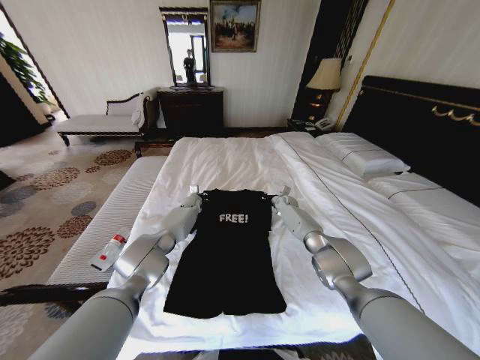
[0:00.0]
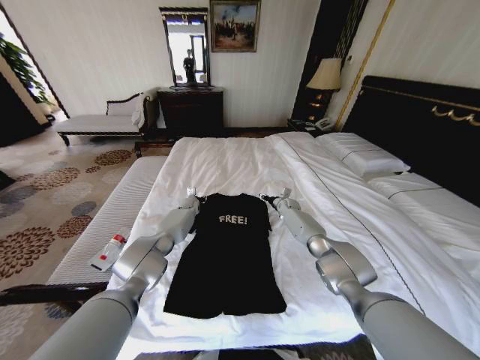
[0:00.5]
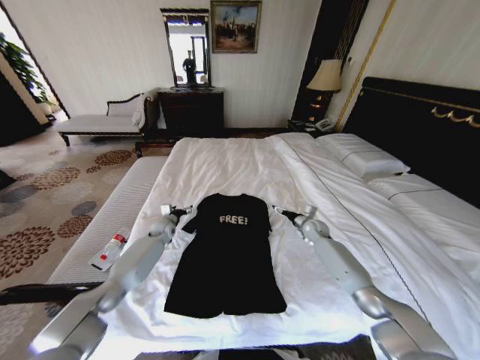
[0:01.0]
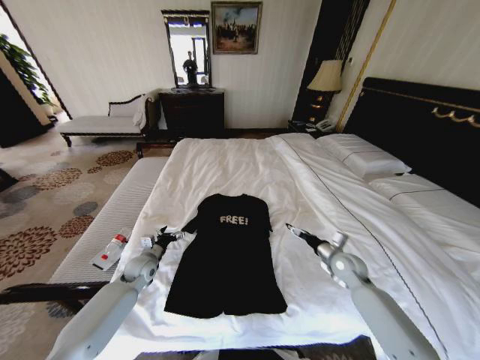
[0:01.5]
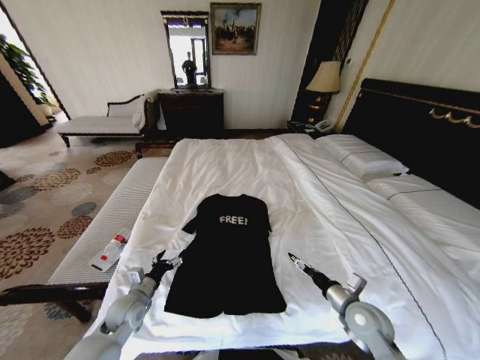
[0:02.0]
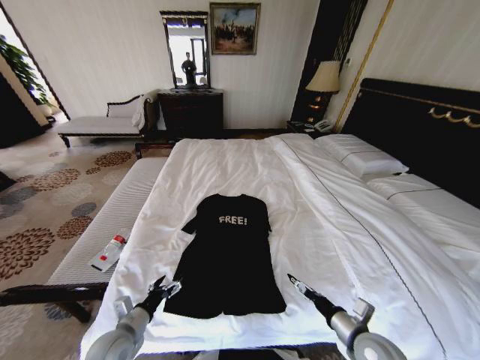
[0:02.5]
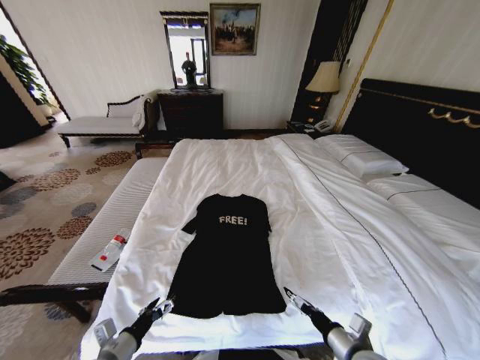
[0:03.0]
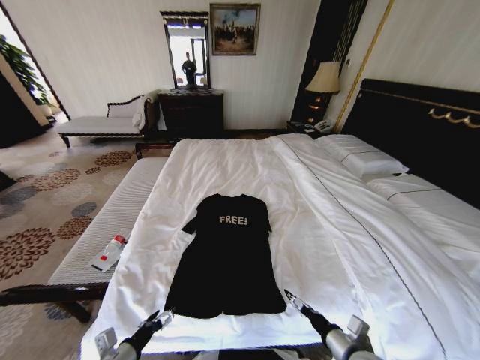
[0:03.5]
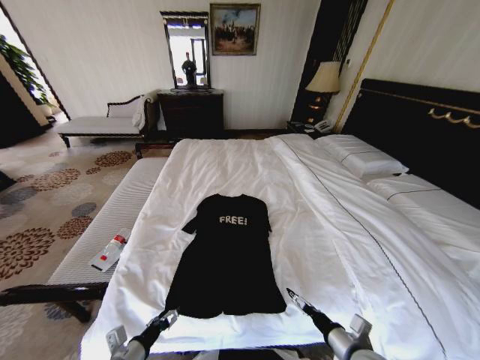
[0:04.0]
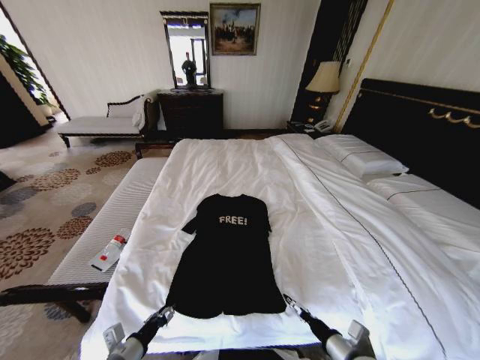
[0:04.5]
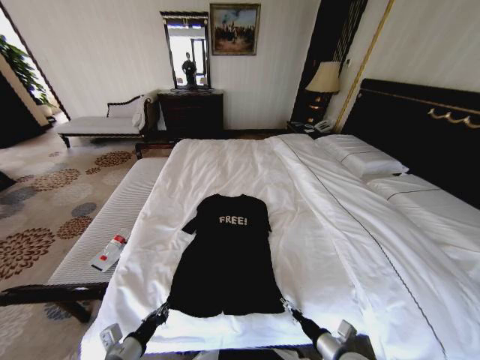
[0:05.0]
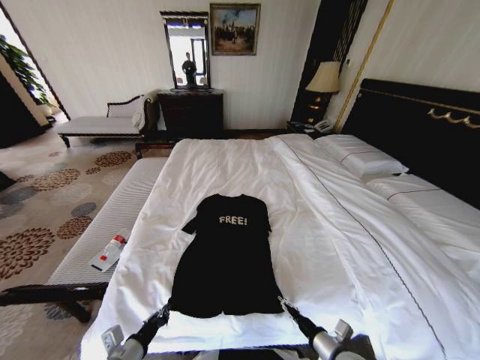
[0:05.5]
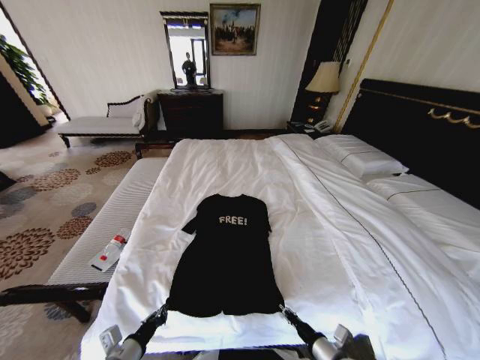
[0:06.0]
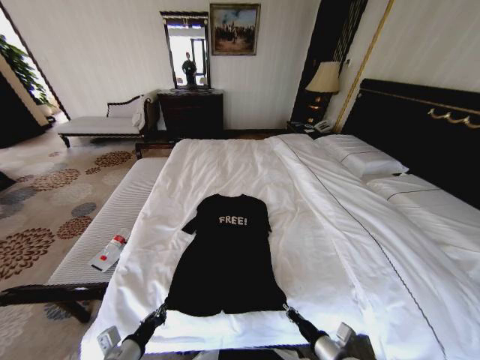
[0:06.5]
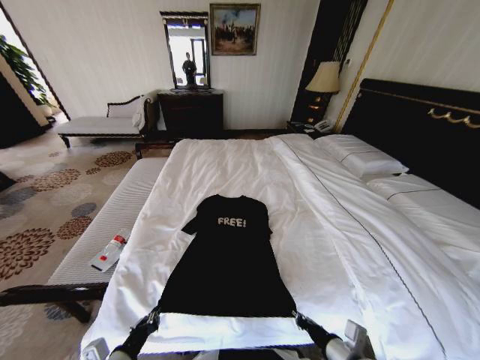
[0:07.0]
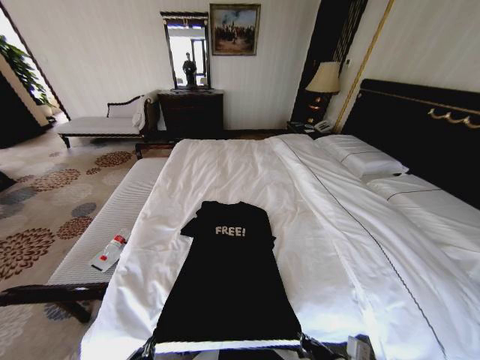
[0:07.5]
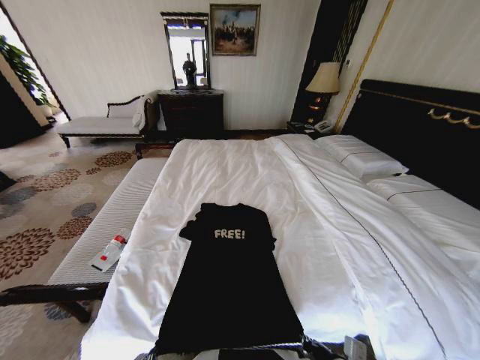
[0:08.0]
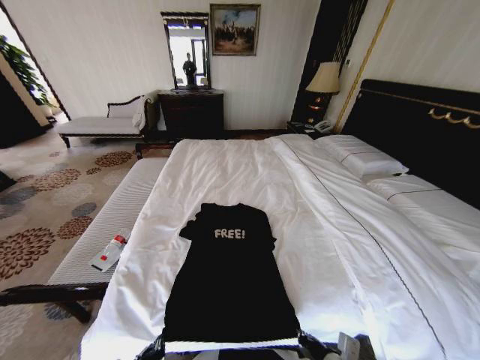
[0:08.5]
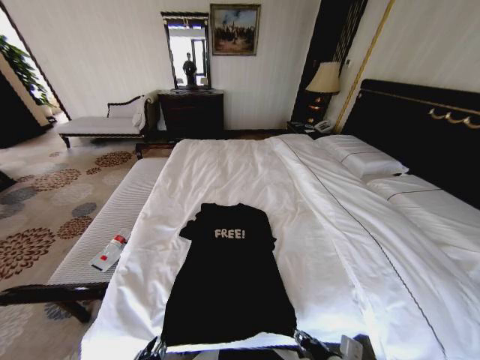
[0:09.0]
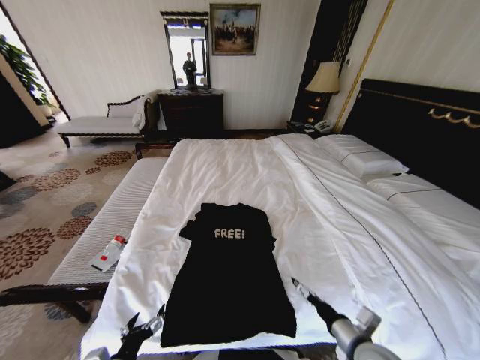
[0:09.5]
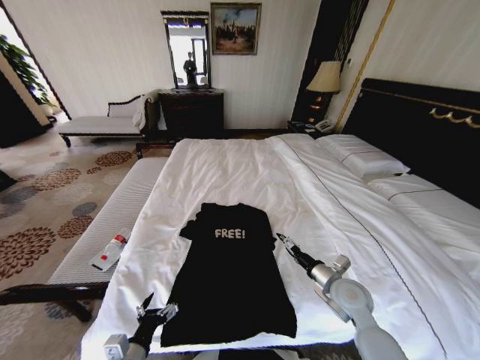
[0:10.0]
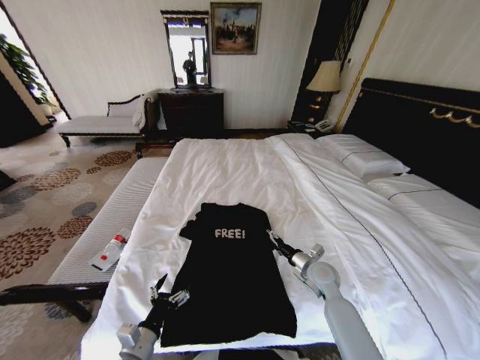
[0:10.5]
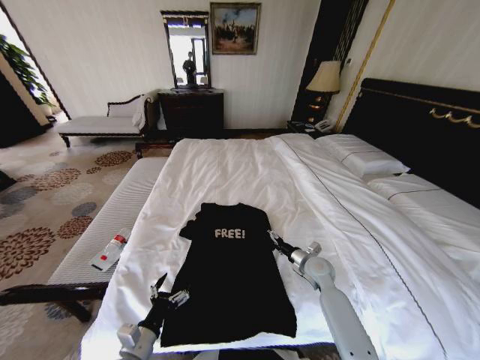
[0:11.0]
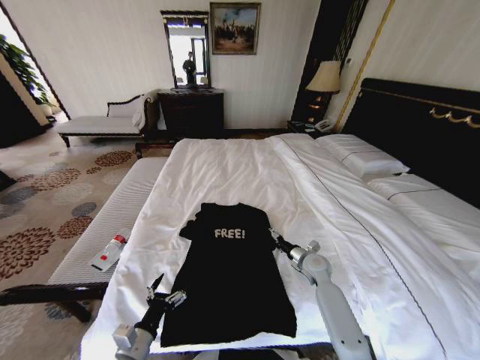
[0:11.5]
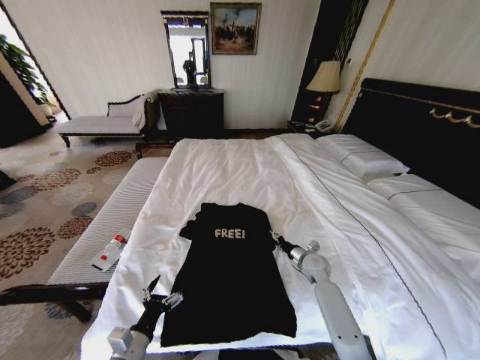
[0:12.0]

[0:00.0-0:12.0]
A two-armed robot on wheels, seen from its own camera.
Task of the whole recording: Fold the clothes on the bed.
0:00.0 to 0:02.0: Both grippers move backward, about 40 cm. The right gripper opens its fingers. Meanwhile the left gripper opens.
0:02.0 to 0:04.0: The left gripper travels backward by about 15 cm; the right gripper travels backward by approximately 10 cm.
0:04.0 to 0:06.0: The left gripper closes up. Meanwhile the right gripper ends up approximately 5 cm from where it was, and closes its fingers.
0:06.0 to 0:08.0: The right gripper goes approximately 5 cm upward. The left gripper goes some 10 cm backward.
0:08.0 to 0:10.0: The left gripper heads forward, covering about 10 cm, and opens up. The right gripper goes approximately 20 cm forward, and opens up.
0:10.0 to 0:12.0: The right gripper travels forward and downward by about 15 cm.

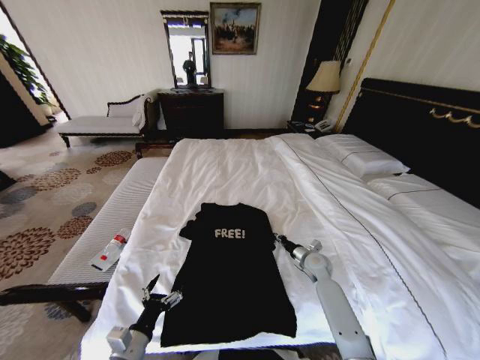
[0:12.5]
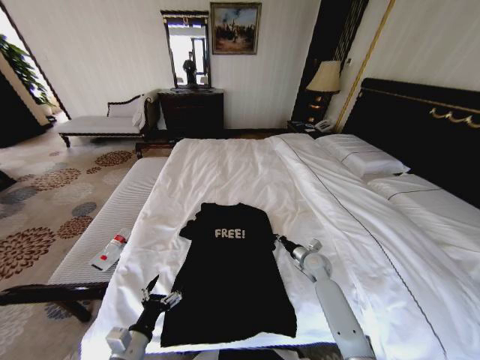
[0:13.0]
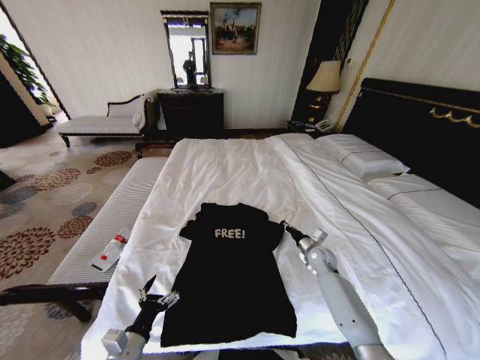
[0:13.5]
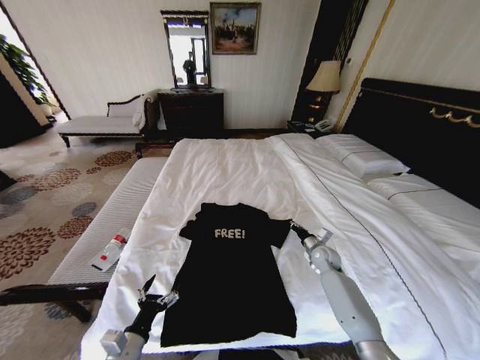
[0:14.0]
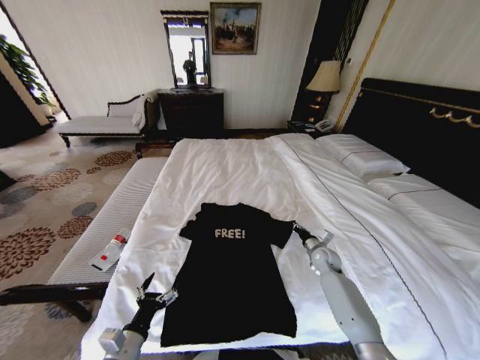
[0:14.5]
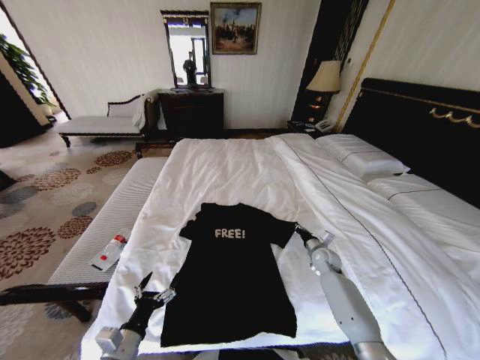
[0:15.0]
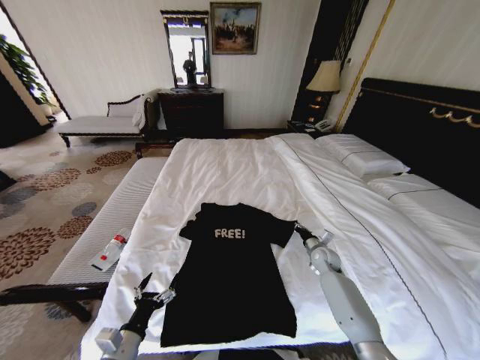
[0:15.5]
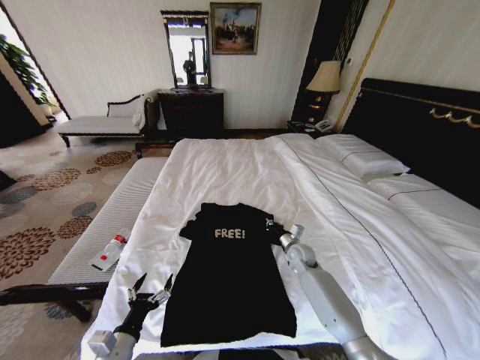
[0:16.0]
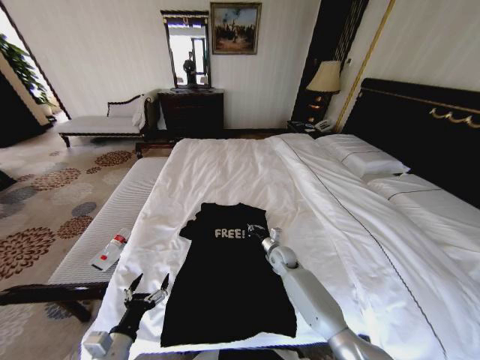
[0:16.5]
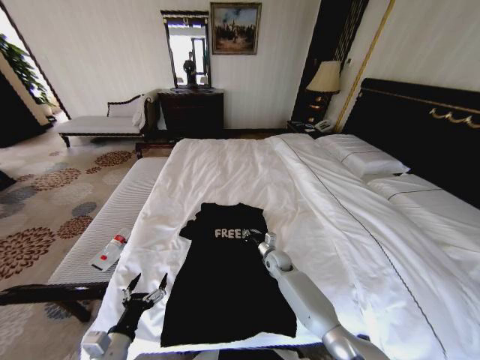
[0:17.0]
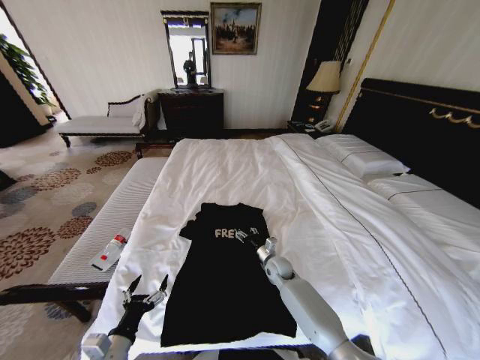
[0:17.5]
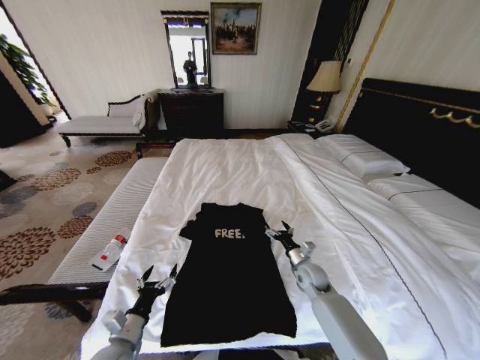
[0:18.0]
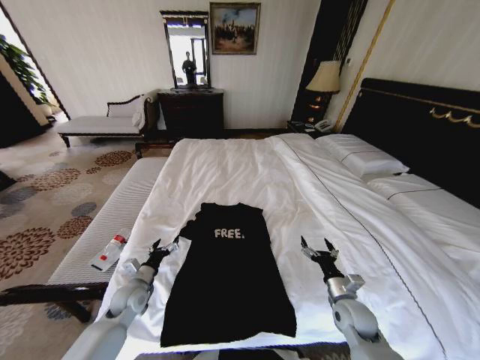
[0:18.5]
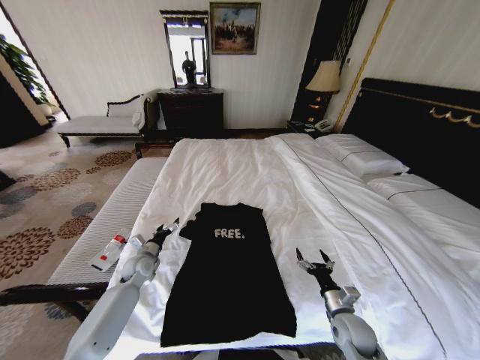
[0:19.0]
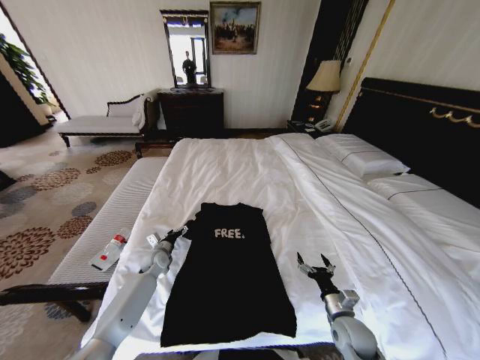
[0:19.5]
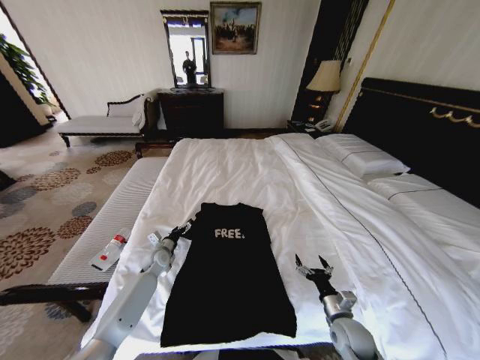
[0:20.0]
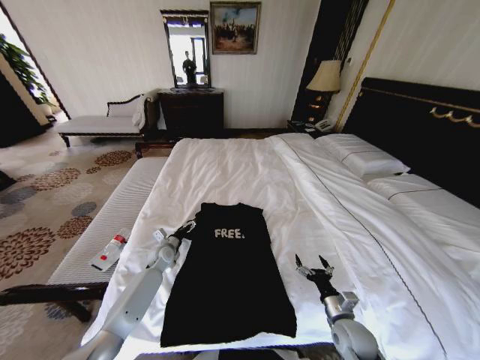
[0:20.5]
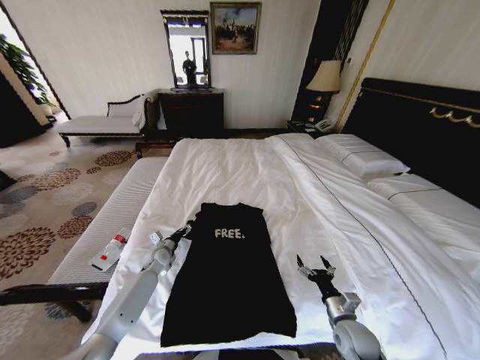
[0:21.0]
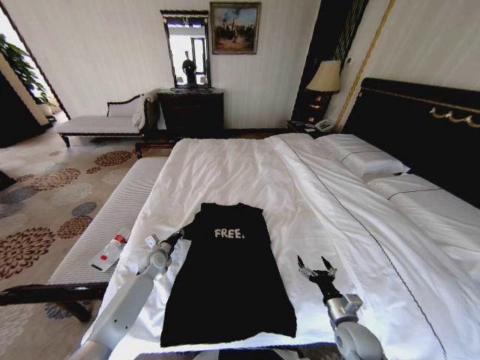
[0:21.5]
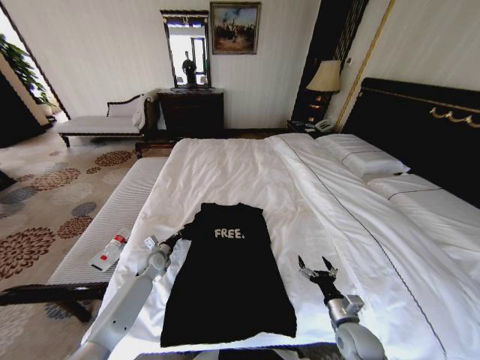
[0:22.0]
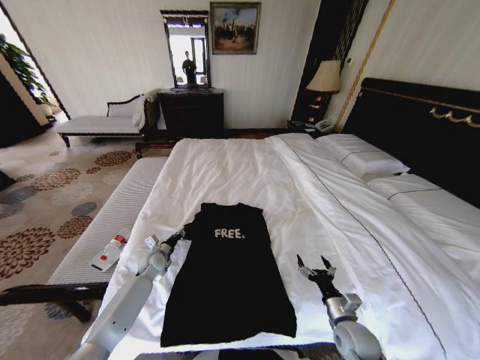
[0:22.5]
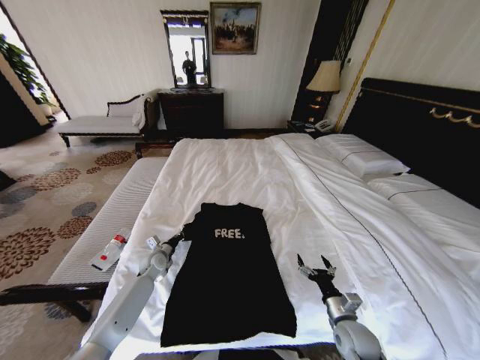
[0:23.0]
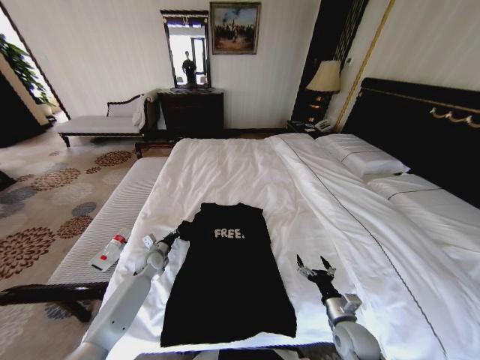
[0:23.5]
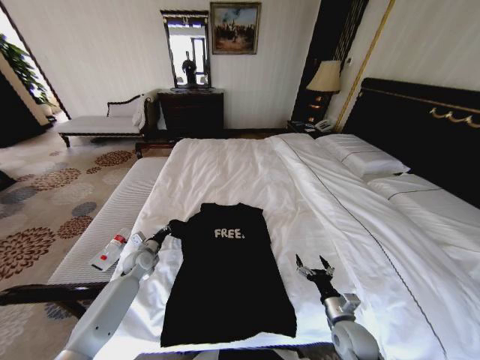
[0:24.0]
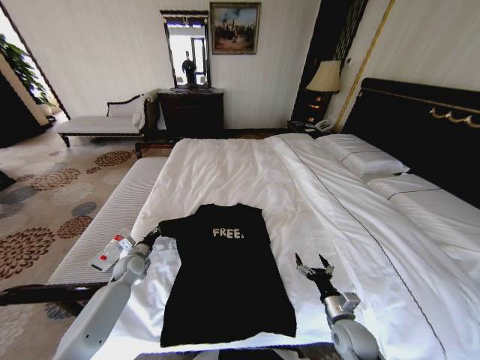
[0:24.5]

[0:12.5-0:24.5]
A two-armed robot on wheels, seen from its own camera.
Task of the whole recording: Fold the clothes on the bed.
0:14.5 to 0:16.5: The right gripper shifts roughly 15 cm to the left.
0:16.5 to 0:18.5: The right gripper travels backward and to the right by approximately 25 cm, and opens its fingers; the left gripper goes approximately 20 cm forward.
0:18.5 to 0:20.5: The right gripper ends up some 5 cm from where it was, while the left gripper travels forward by about 15 cm.
0:20.5 to 0:22.5: The left gripper closes.
0:22.5 to 0:24.5: The left gripper travels to the left by some 5 cm.

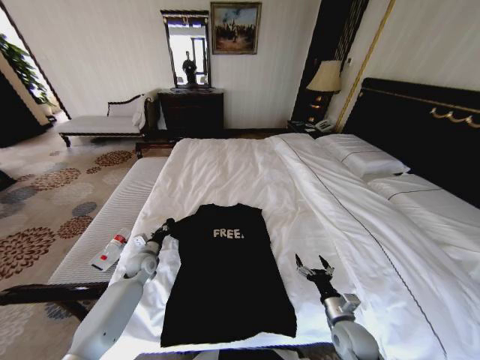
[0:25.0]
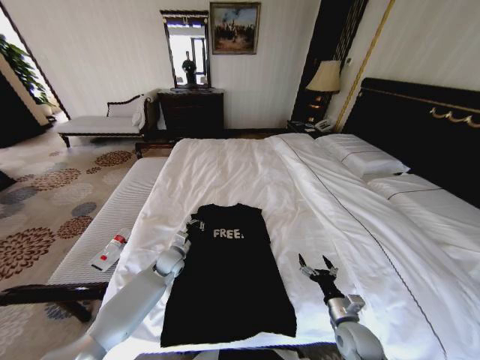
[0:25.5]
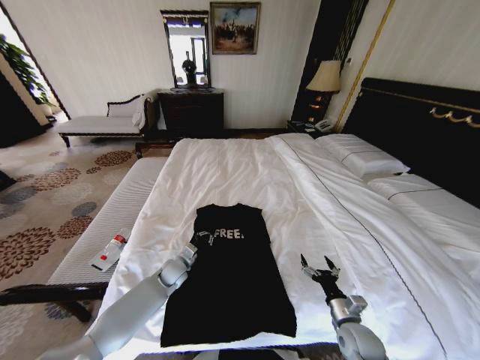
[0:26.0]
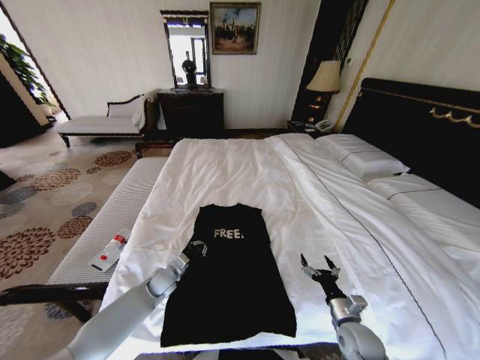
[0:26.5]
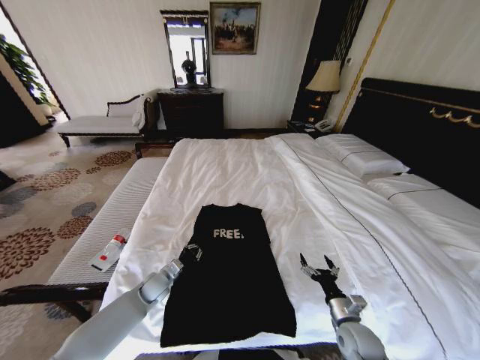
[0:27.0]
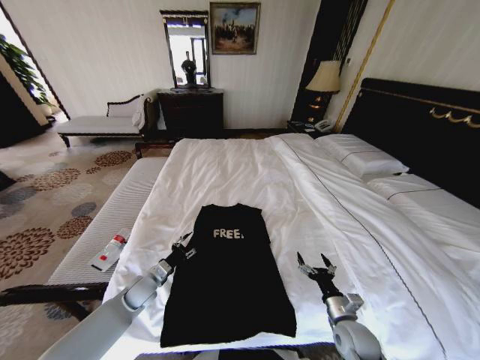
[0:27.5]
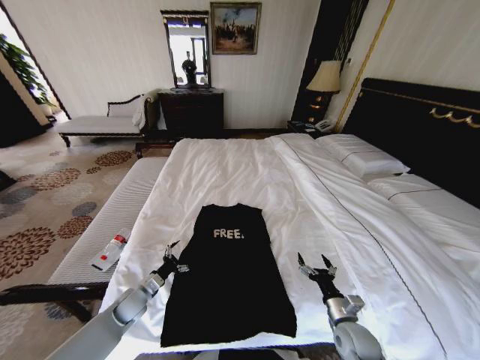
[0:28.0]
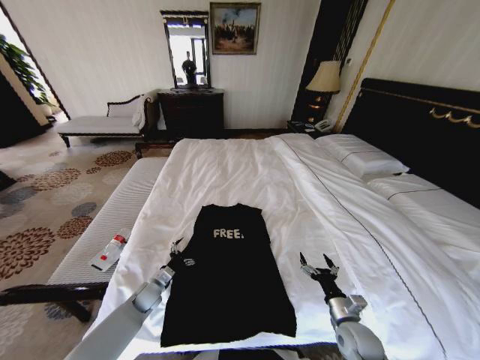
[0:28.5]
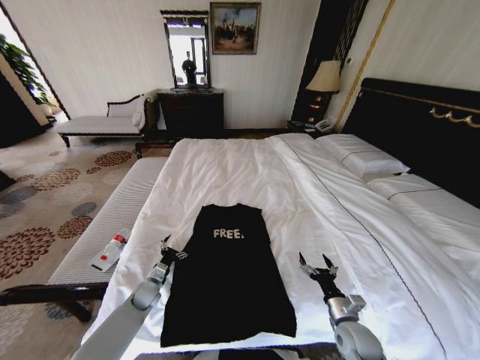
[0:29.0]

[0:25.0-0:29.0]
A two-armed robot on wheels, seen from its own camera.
Task of the whole recording: Fold the clothes on the bed.
0:25.0 to 0:27.0: The left gripper travels backward and to the right by roughly 10 cm.
0:27.0 to 0:29.0: The left gripper ends up approximately 5 cm from where it was, and opens up.
